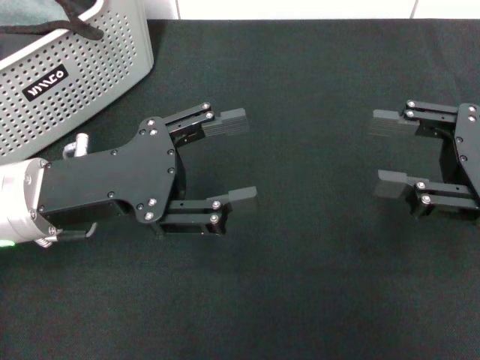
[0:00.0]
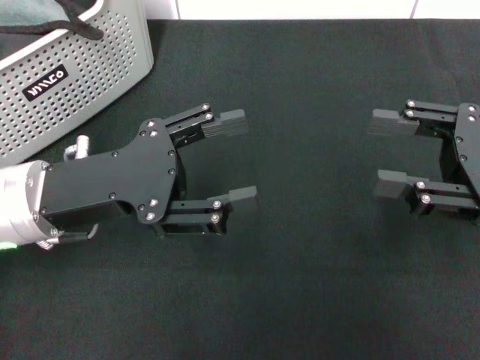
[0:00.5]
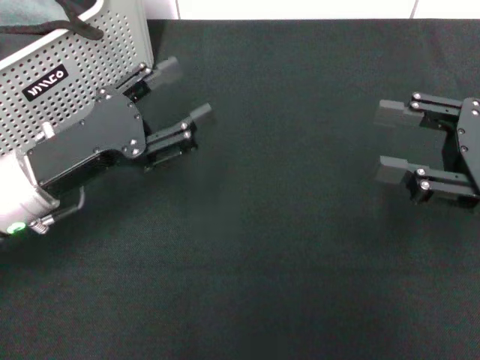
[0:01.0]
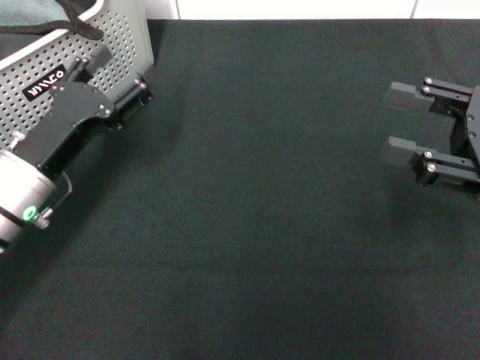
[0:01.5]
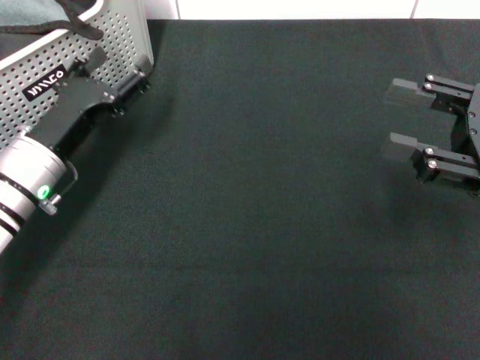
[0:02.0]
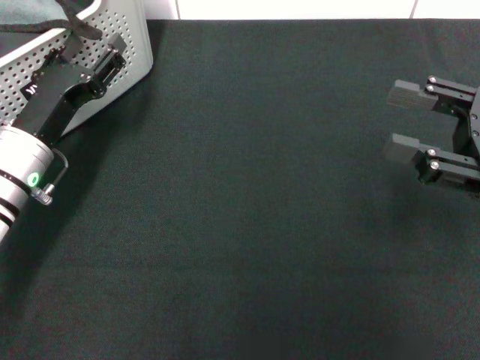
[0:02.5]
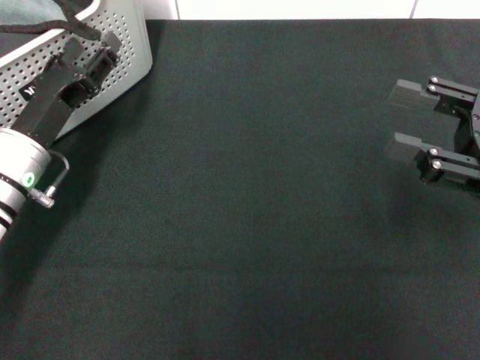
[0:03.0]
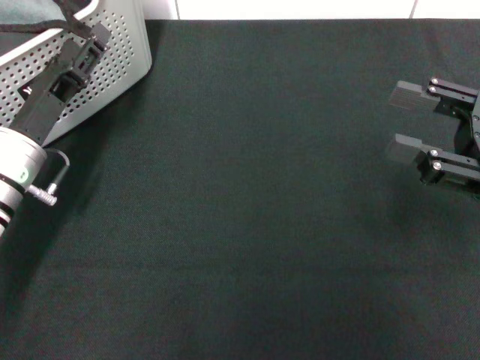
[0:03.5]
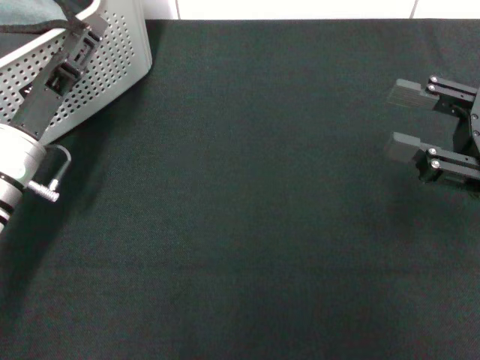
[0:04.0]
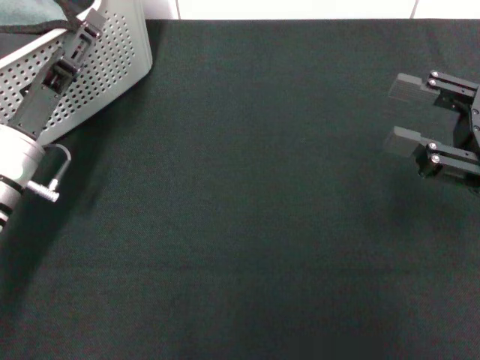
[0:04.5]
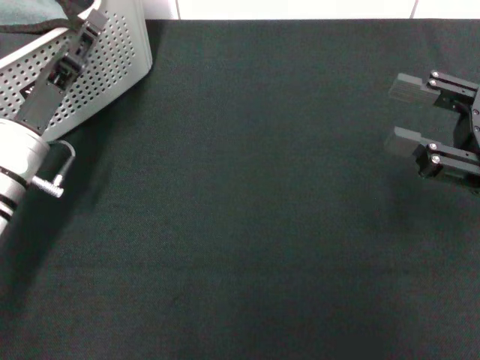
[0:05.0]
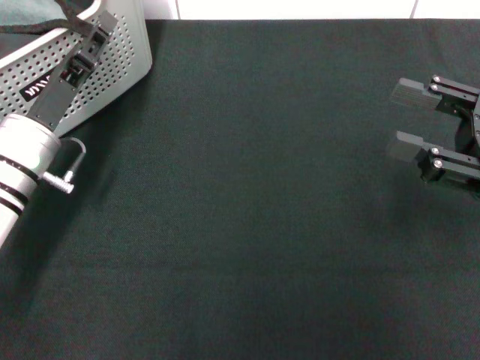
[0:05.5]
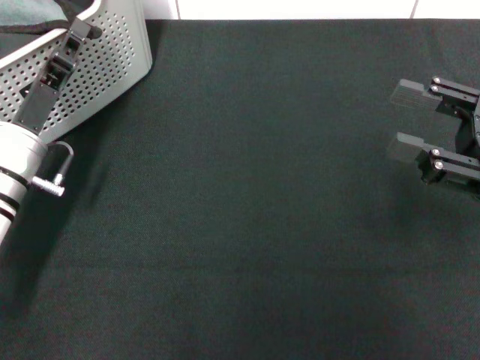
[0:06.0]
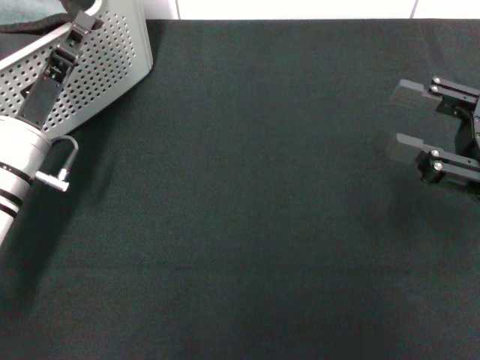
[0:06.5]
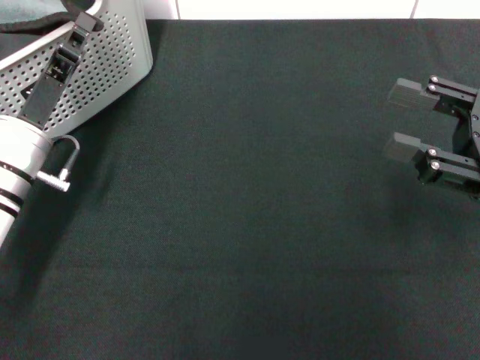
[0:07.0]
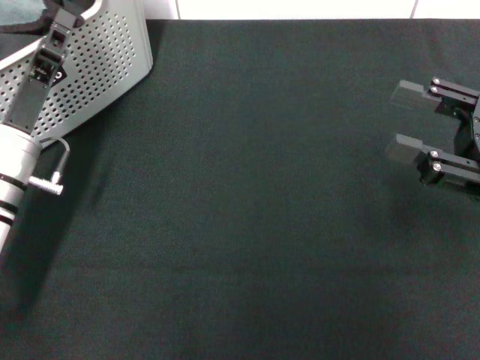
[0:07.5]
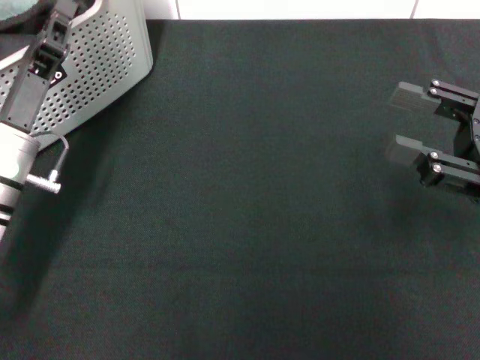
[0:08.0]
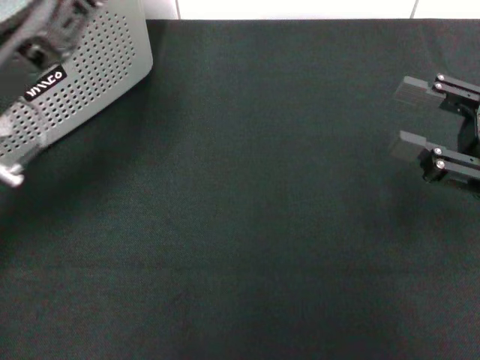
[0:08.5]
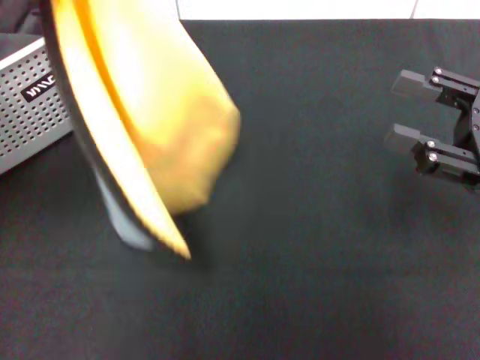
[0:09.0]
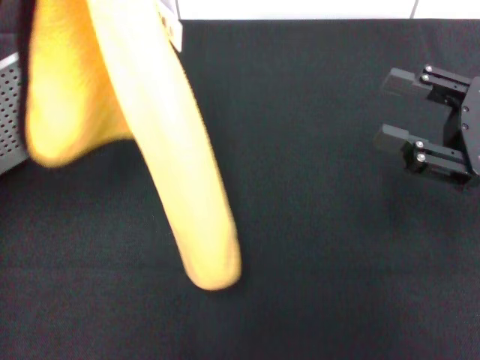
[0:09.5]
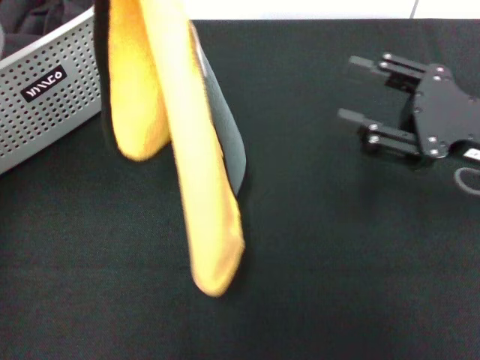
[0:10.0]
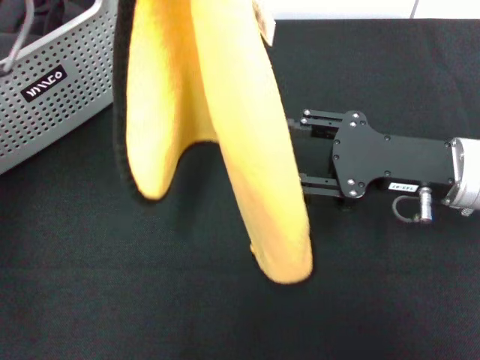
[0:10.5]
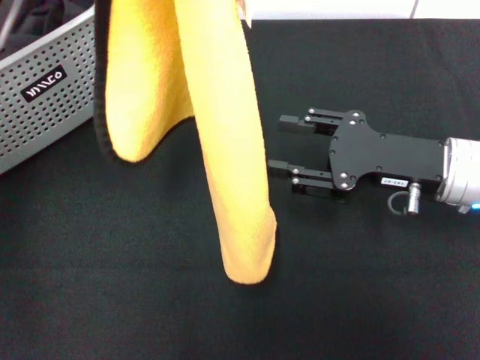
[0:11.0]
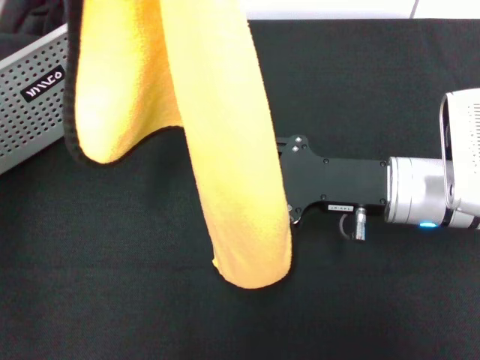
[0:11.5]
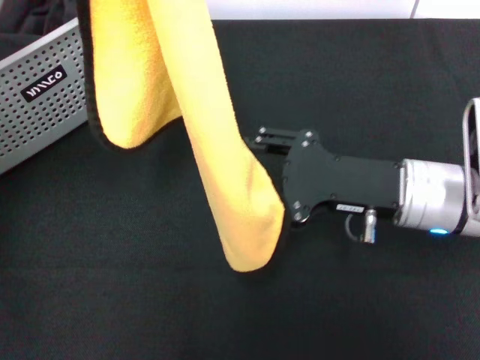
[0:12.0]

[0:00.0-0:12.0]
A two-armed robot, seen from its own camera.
Task of the whole recording: pick up the towel from the storage box and lay it flat on the black tablecloth.
Step, 0:00.0 to 0:06.5: Pick up a towel with the left gripper.
0:00.0 to 0:02.0: The left gripper heads downward, covering some 10 cm.
0:04.0 to 0:06.0: The left gripper closes.
0:06.0 to 0:08.0: The grippers stay close to where they were, moving slightly.
0:08.0 to 0:10.0: The left gripper heads upward, covering about 20 cm.
0:10.0 to 0:12.0: The right gripper goes about 10 cm to the left.

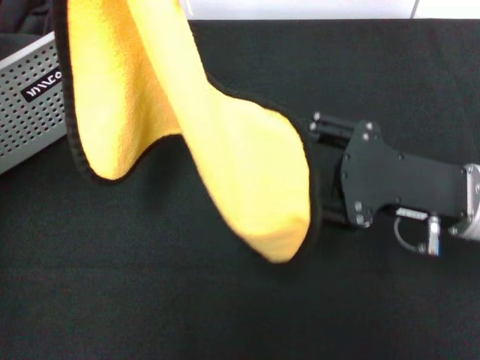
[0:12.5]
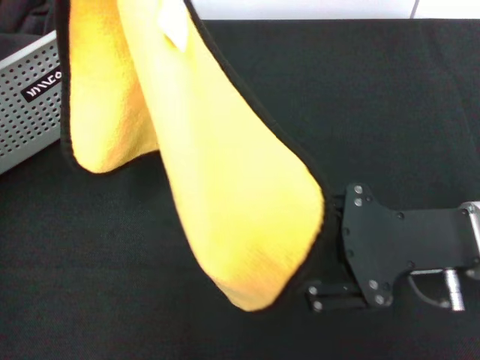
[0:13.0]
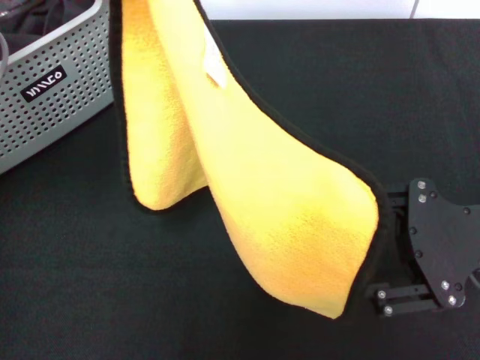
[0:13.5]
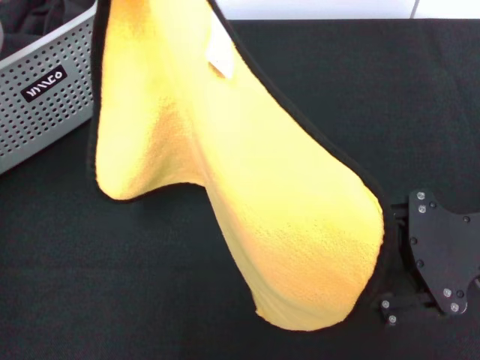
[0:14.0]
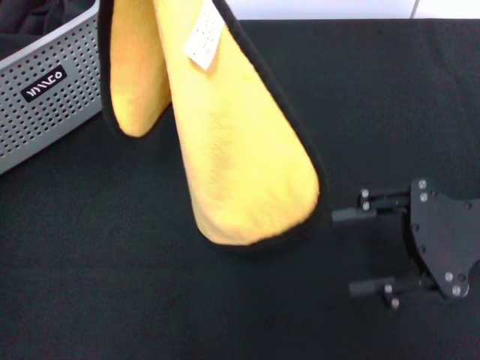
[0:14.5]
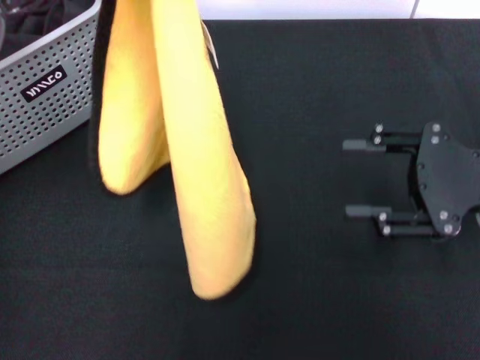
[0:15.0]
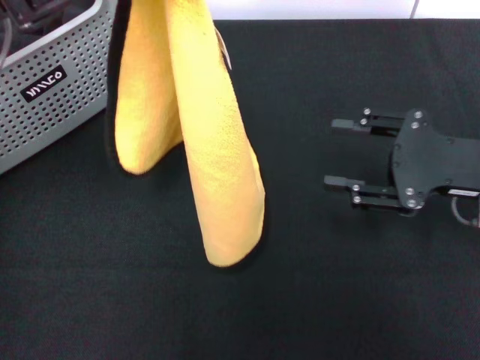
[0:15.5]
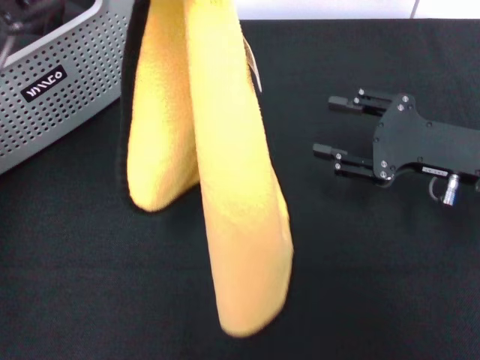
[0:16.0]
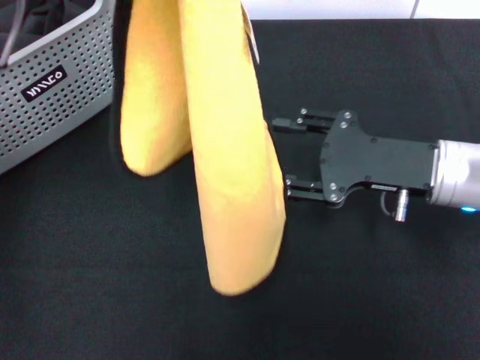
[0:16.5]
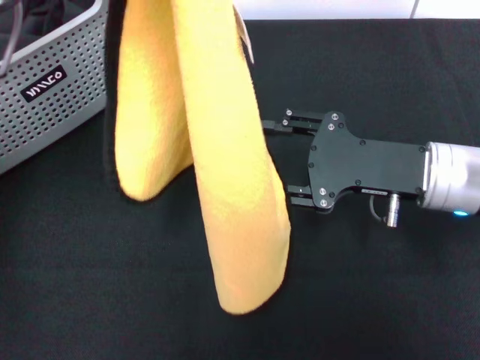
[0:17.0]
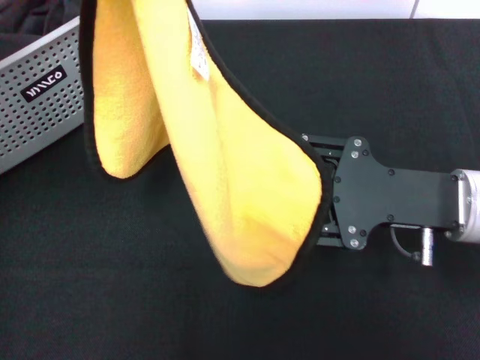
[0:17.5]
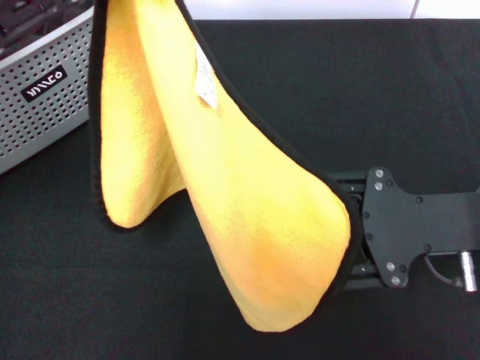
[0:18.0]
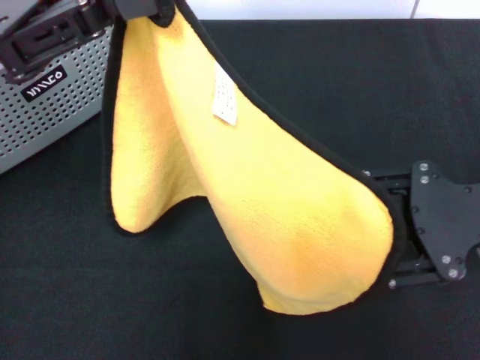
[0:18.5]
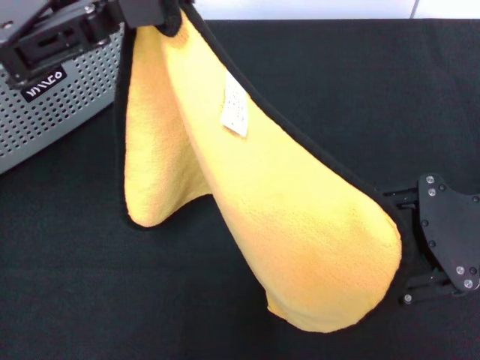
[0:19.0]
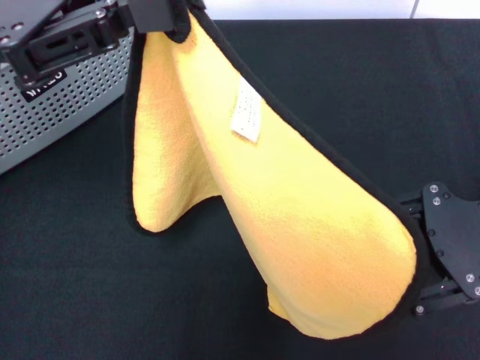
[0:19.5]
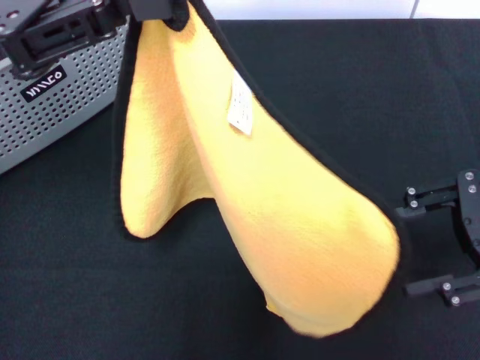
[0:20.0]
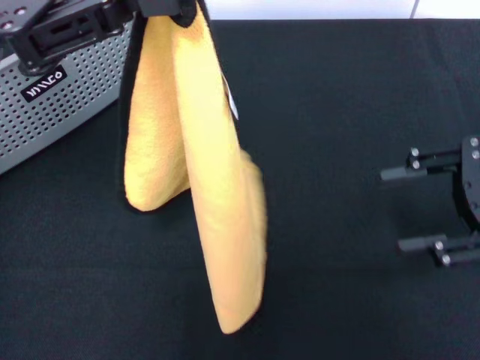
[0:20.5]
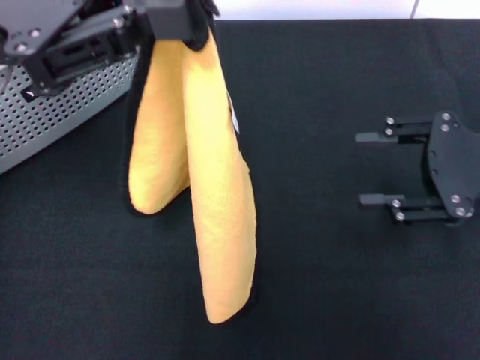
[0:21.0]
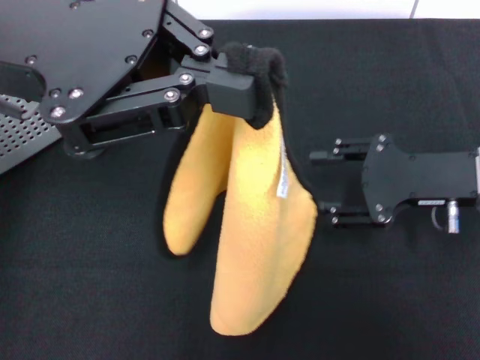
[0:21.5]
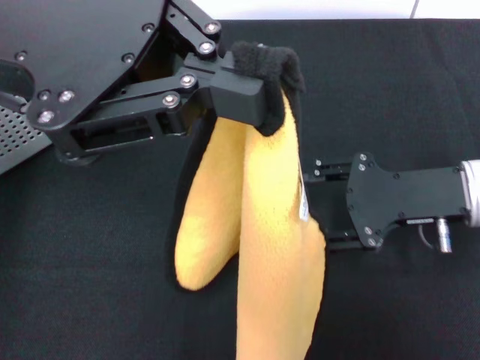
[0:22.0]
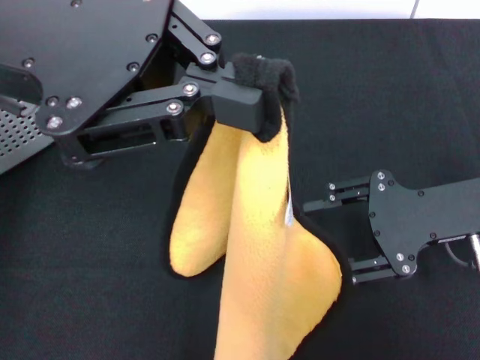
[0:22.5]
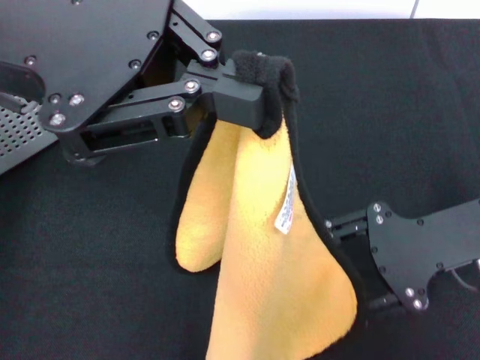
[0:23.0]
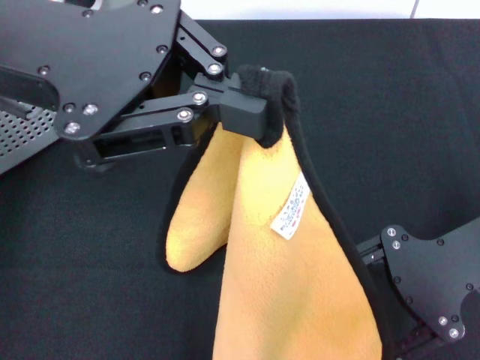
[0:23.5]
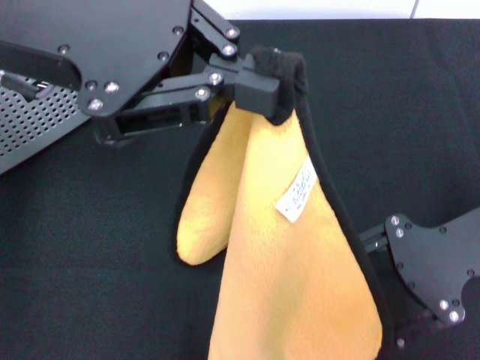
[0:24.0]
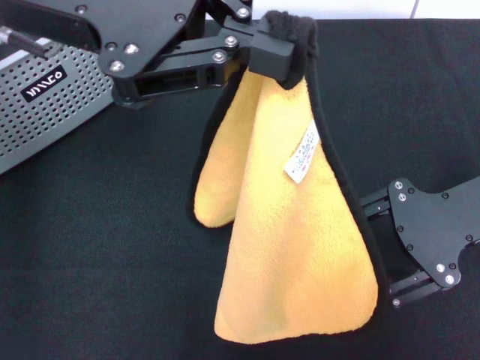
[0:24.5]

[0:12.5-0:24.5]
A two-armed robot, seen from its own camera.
Task of the whole recording: pick up the towel from the storage box and lay it flat on the black tablecloth.
0:12.5 to 0:14.5: The right gripper shifts by about 5 cm.
0:14.5 to 0:16.5: The right gripper moves to the left, some 5 cm.
0:16.5 to 0:18.5: The left gripper ends up some 5 cm from where it was. The right gripper travels to the right by some 5 cm.
0:20.5 to 0:22.5: The right gripper heads to the left, covering roughly 5 cm, while the left gripper ends up approximately 5 cm from where it was.

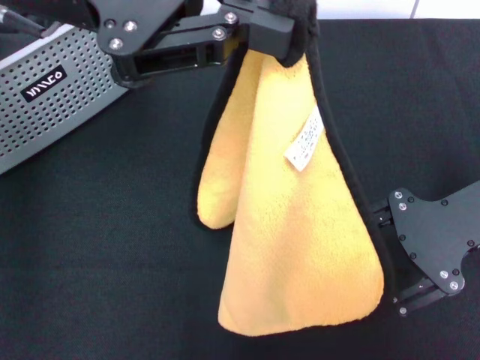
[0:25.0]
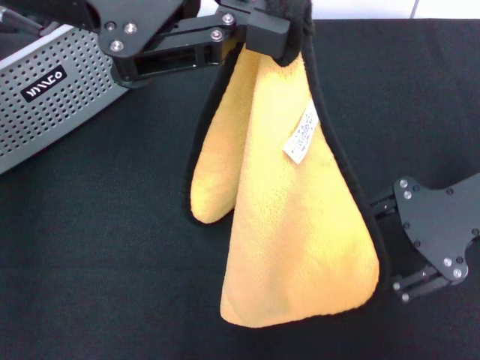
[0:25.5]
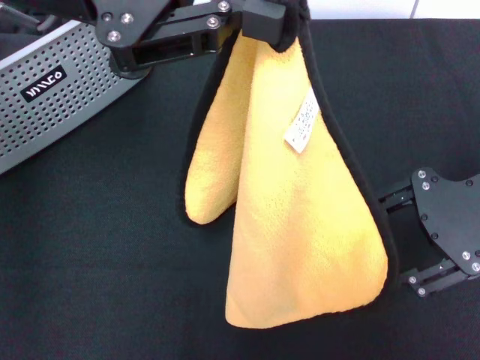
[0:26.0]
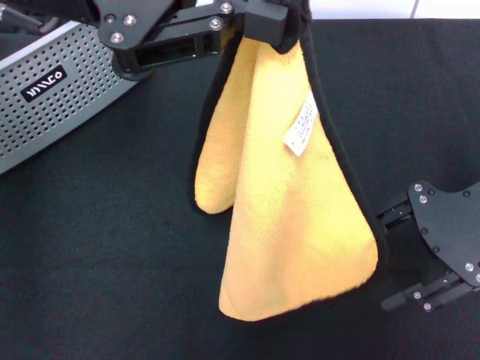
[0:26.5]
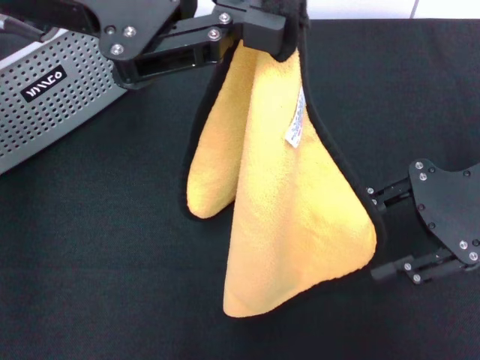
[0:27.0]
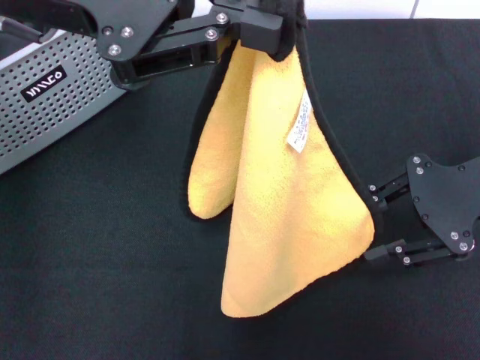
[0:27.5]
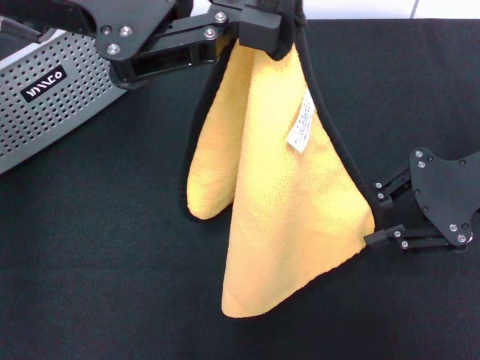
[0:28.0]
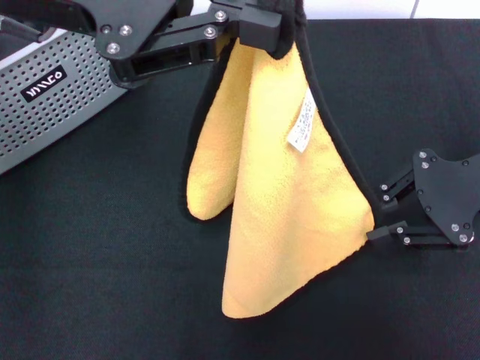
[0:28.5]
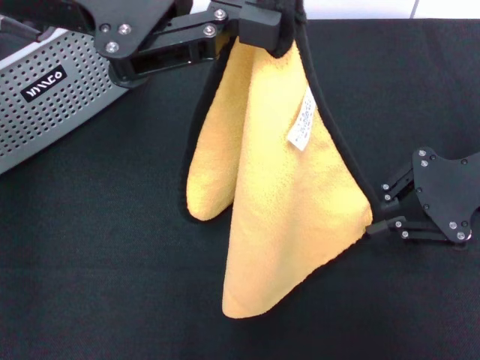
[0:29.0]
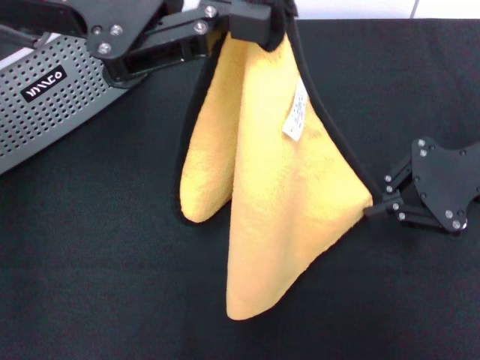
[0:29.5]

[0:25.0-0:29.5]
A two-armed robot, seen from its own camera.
Task of the whole recording: pick up the towel from the storage box and lay it flat on the black tablecloth.
Step, 0:25.0 to 0:29.0: Spread the towel flat with the left gripper.
0:25.0 to 0:27.0: The grippers stay close to where they were, moving slightly.
0:27.0 to 0:29.5: The right gripper closes.
